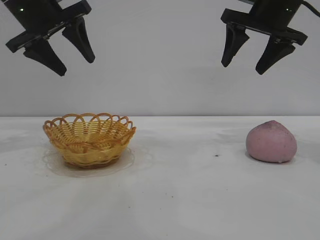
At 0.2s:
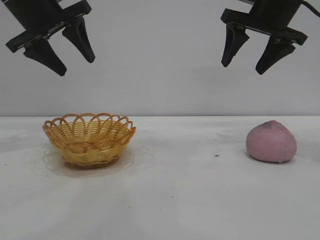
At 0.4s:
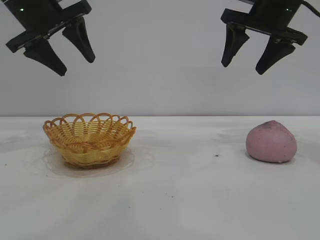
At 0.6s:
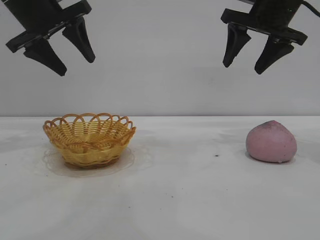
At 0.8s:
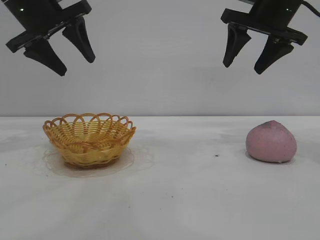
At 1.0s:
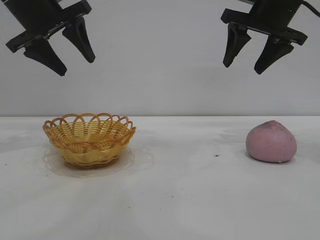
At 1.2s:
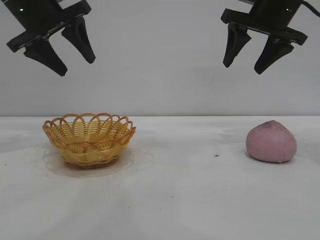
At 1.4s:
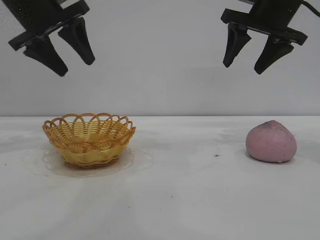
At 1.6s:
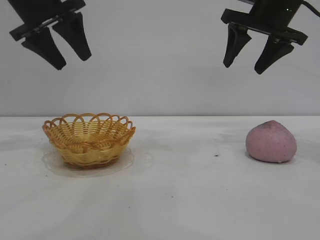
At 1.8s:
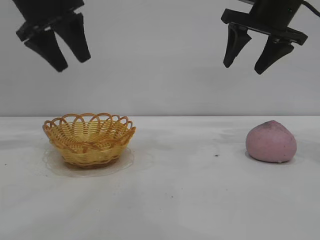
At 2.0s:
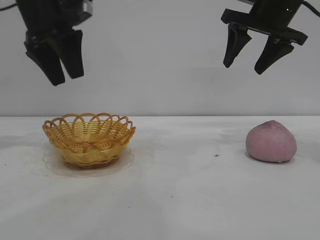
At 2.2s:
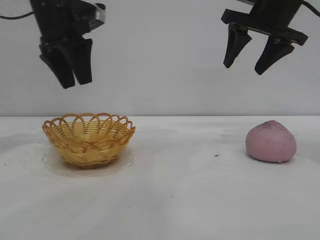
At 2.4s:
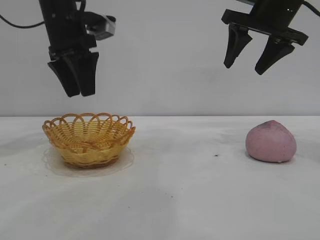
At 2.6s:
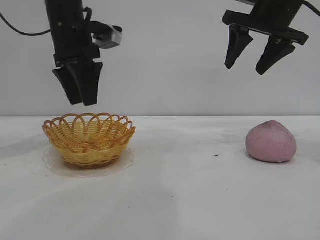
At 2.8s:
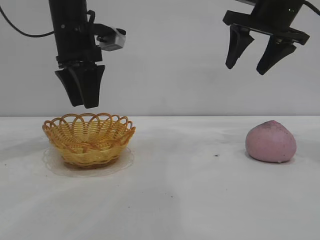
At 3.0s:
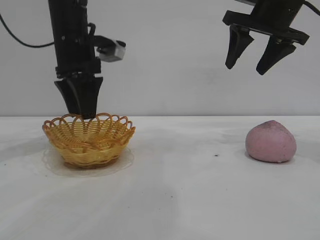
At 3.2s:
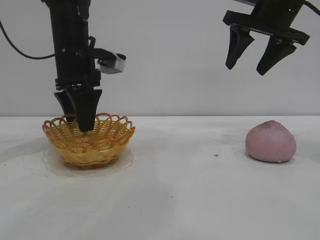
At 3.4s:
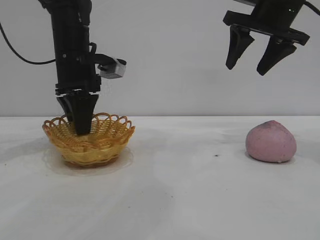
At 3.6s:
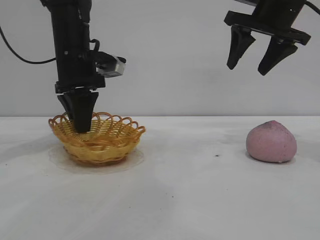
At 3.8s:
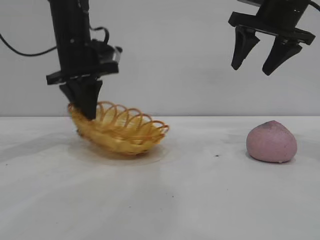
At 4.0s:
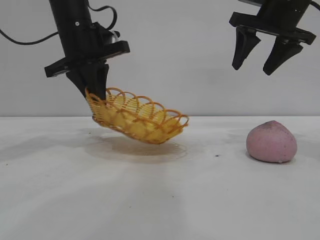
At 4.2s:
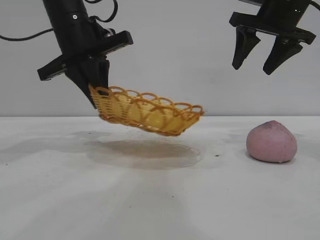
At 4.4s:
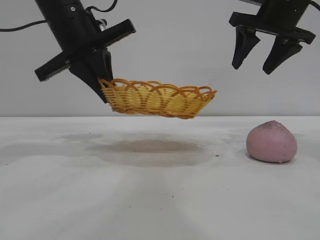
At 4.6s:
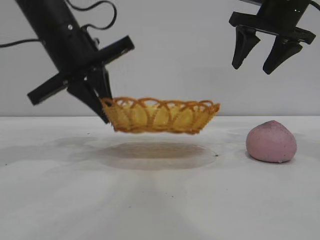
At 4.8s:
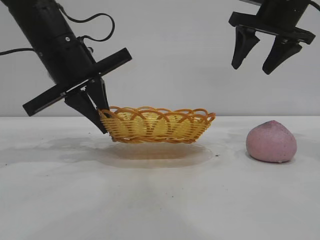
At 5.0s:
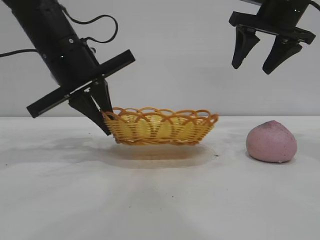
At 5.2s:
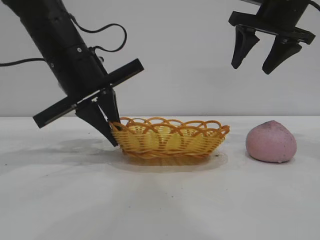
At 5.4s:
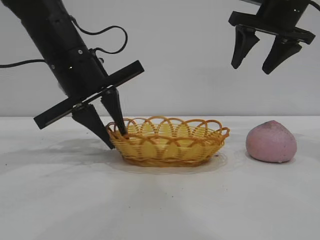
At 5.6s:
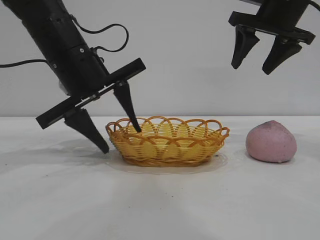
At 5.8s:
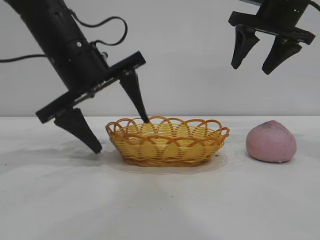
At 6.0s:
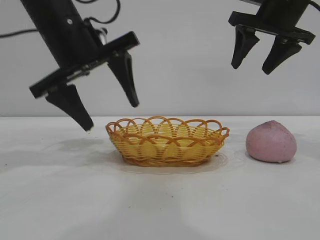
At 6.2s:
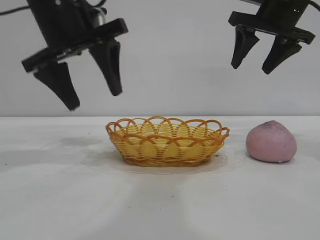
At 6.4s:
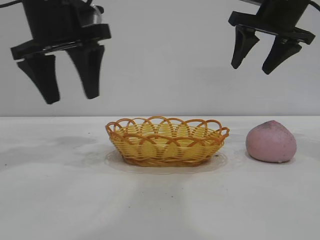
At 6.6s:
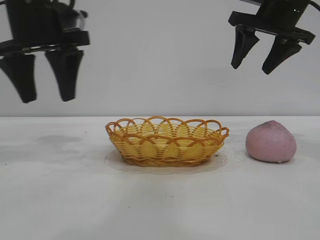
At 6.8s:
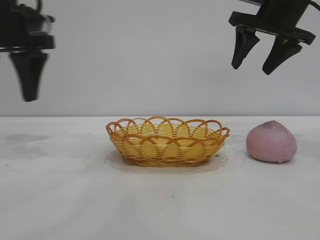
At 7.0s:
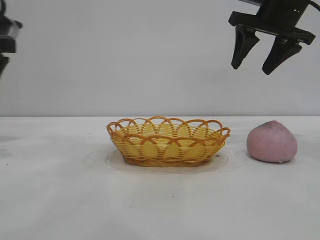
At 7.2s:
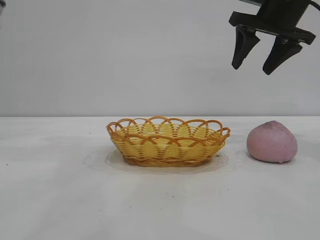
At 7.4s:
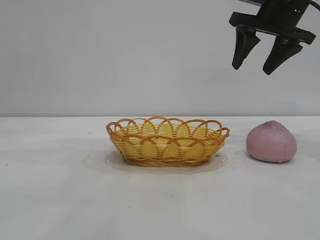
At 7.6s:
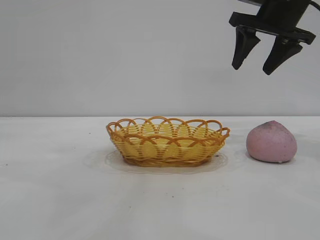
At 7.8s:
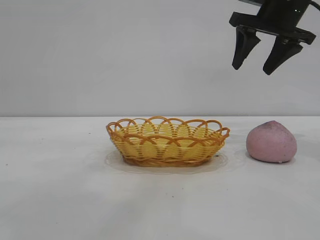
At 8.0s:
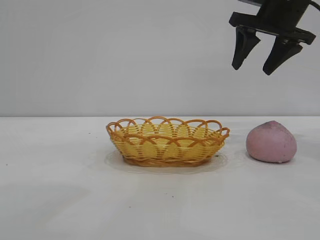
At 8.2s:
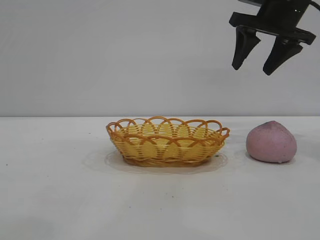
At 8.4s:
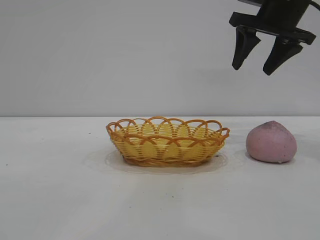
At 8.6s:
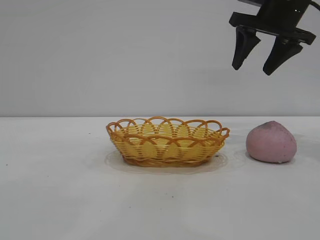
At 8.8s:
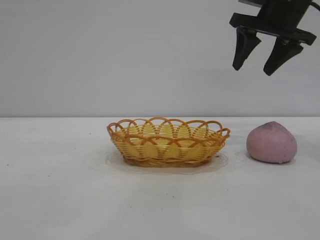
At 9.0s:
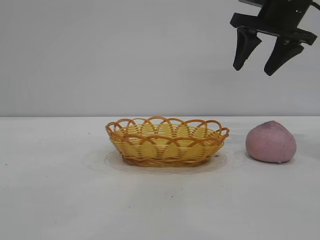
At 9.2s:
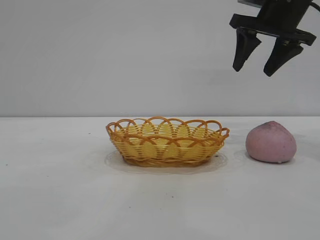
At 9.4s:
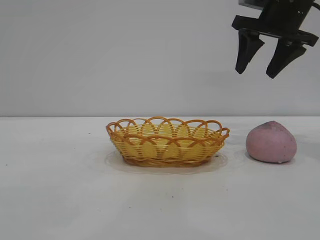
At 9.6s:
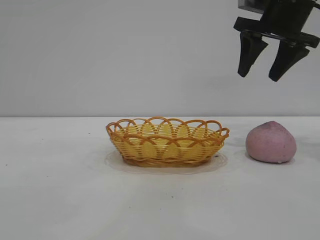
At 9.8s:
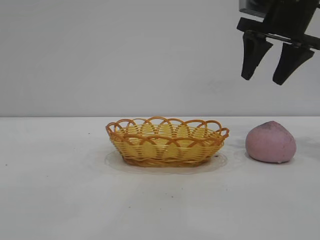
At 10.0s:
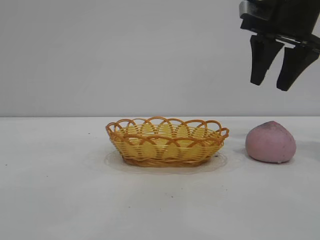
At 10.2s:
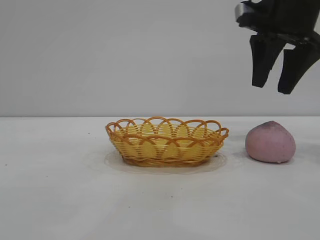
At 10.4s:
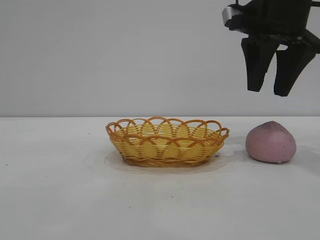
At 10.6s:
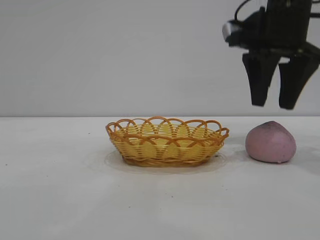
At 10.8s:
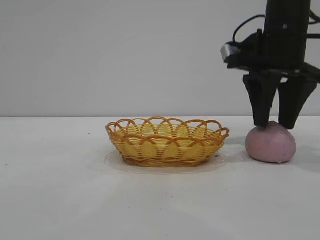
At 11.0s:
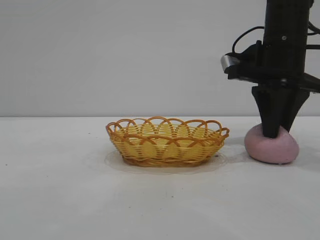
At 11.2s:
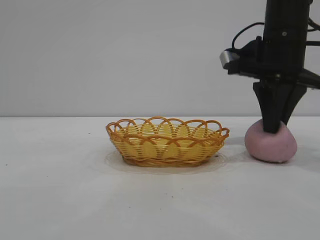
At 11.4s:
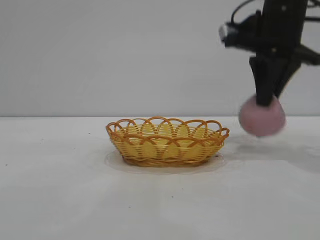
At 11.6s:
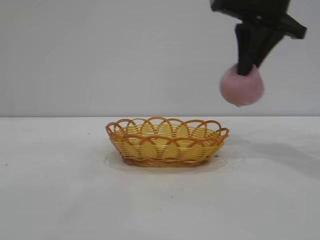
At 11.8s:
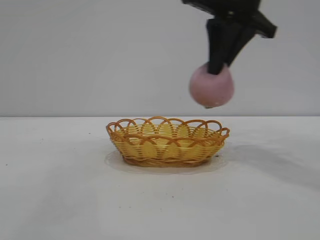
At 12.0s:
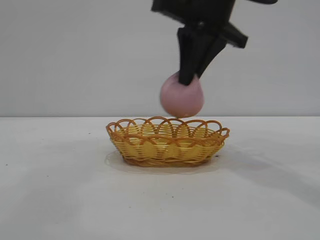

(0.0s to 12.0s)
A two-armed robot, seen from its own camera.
Task of the whole recording: pick up the peach and put it into the basket.
Step, 0.0s - 5.8s: Move the basket to the center of view.
Step, 6.2s - 11.4s: Pick up the peach.

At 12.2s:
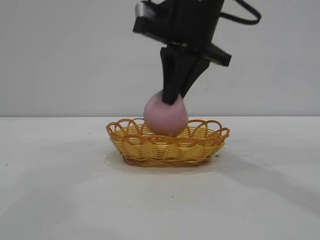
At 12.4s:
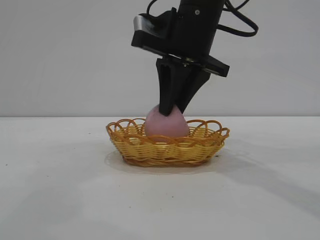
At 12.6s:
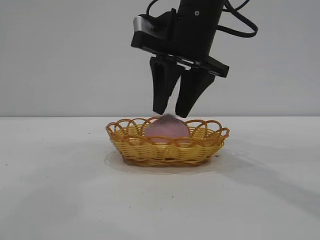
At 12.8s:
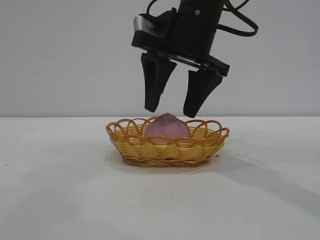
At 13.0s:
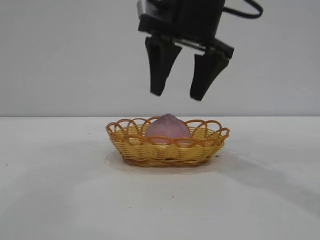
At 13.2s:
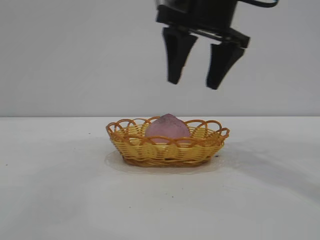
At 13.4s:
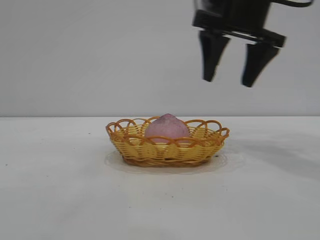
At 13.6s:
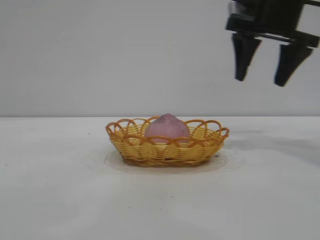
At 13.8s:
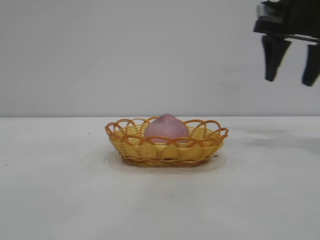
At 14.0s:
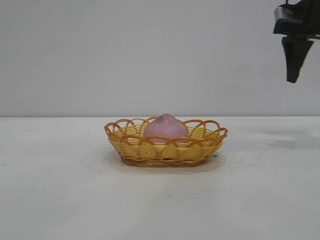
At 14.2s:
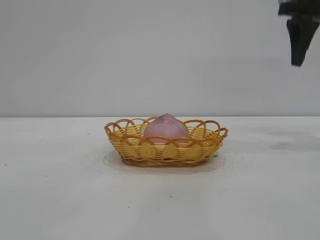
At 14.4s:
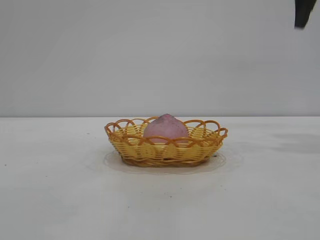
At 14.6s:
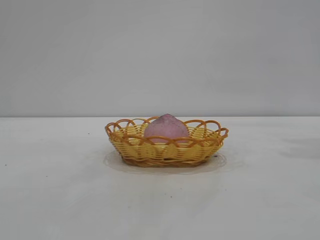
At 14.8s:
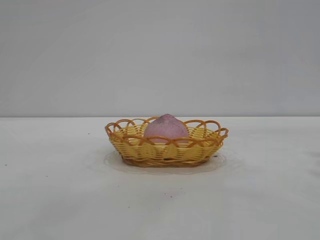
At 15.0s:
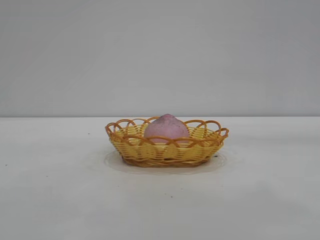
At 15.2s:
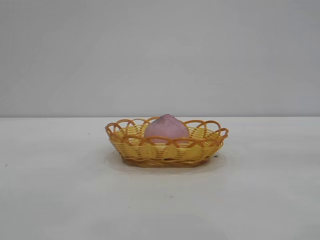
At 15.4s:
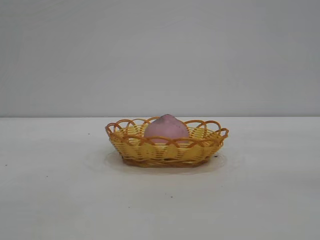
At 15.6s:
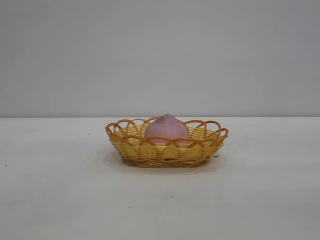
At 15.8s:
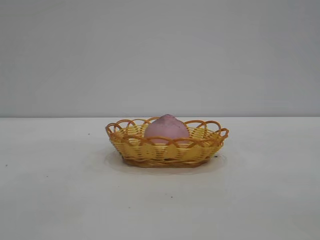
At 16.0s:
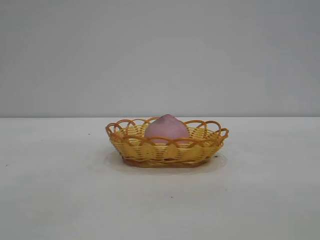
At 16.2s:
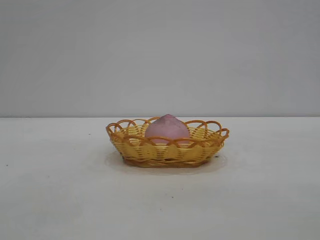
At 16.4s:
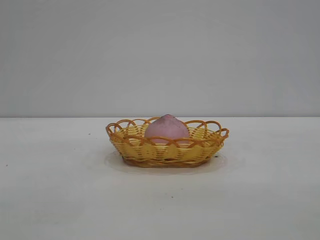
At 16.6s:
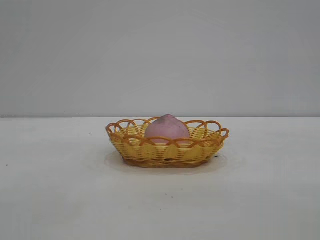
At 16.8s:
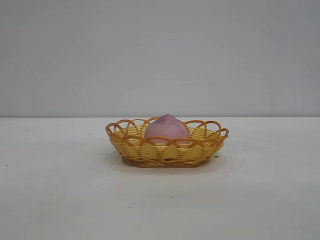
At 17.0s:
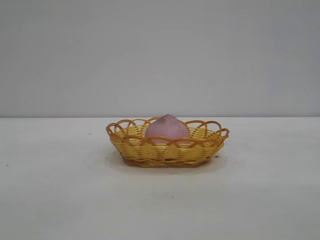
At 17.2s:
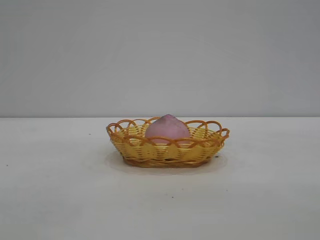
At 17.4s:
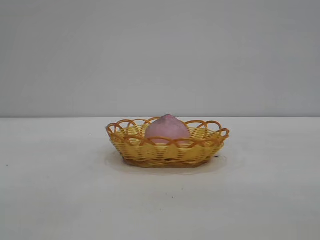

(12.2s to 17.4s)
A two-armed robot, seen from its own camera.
Task of the whole recording: pick up the peach and put it into the basket.
Step, 12.2s - 13.0s: place the peach into the basket.
